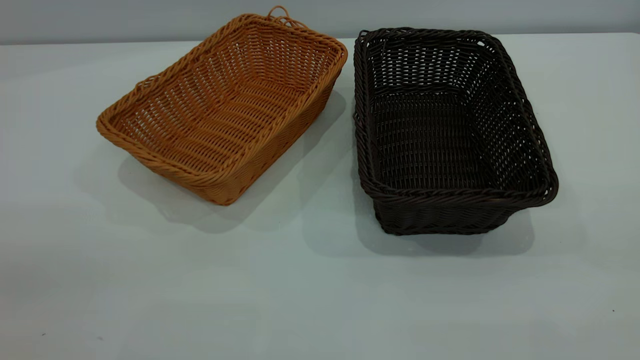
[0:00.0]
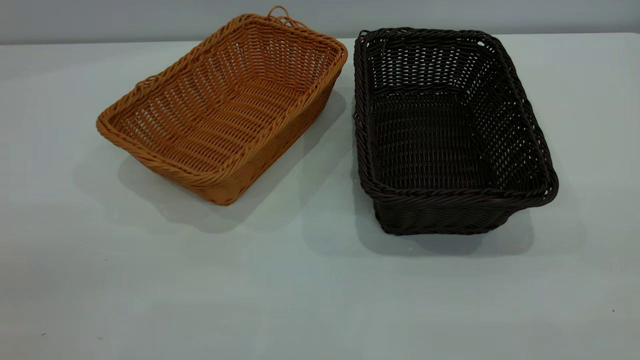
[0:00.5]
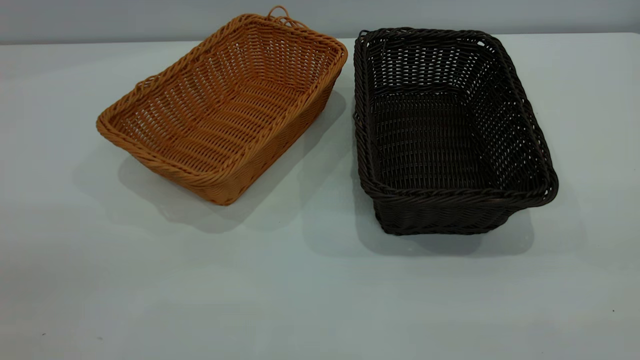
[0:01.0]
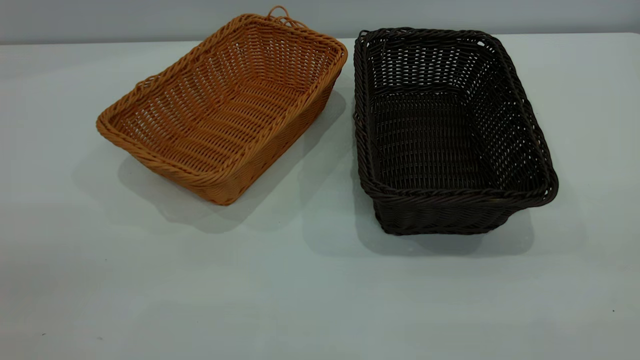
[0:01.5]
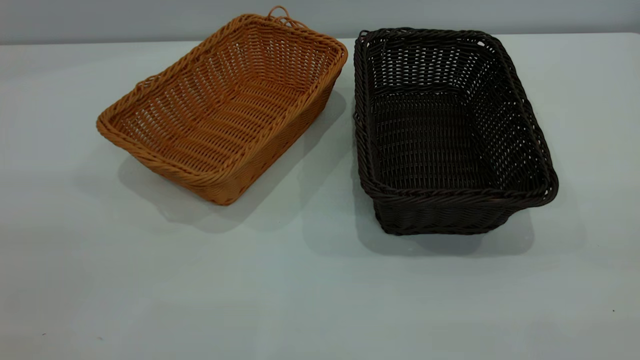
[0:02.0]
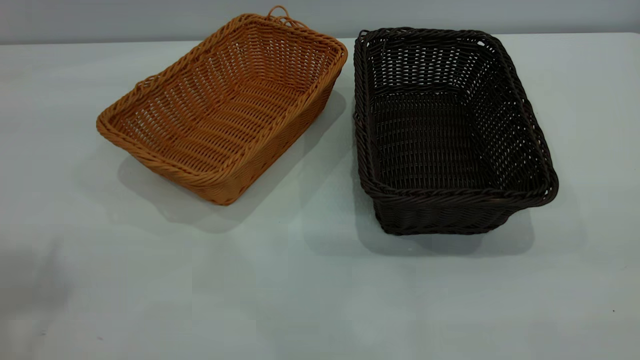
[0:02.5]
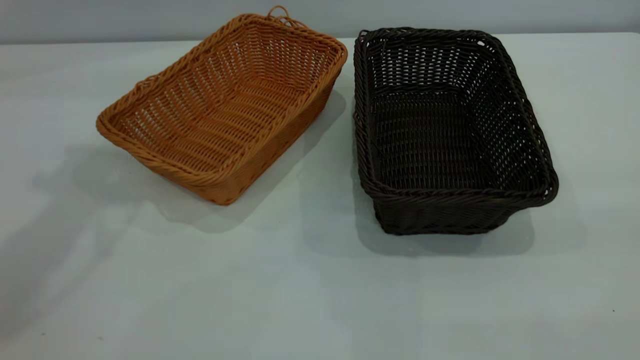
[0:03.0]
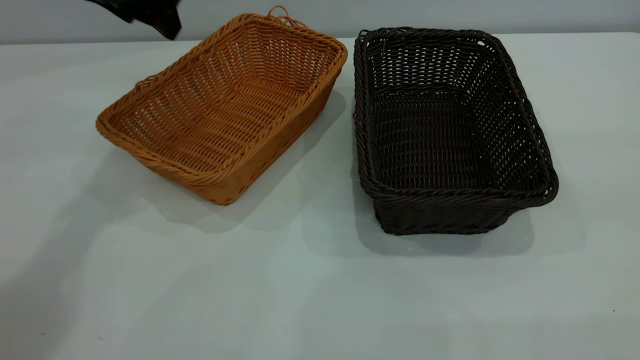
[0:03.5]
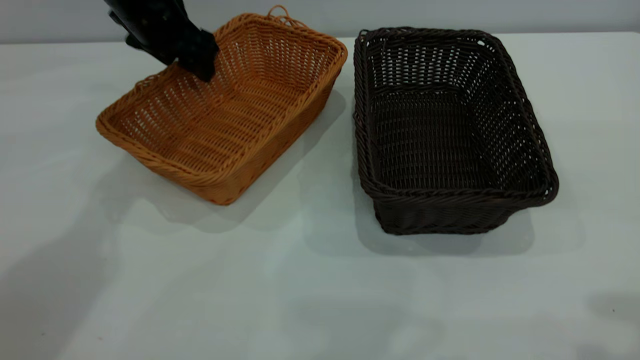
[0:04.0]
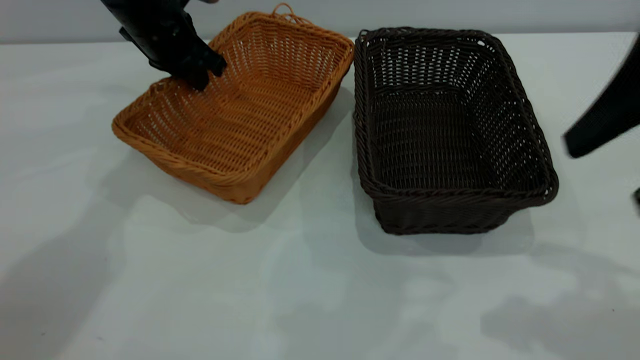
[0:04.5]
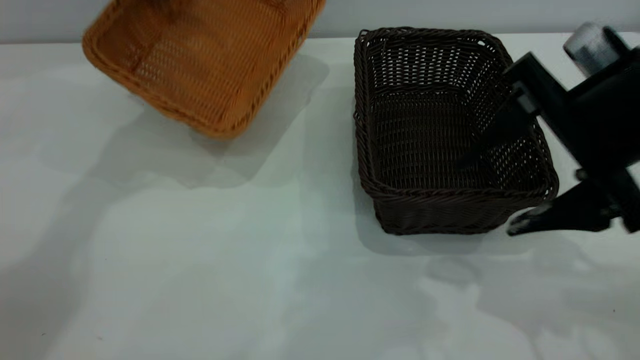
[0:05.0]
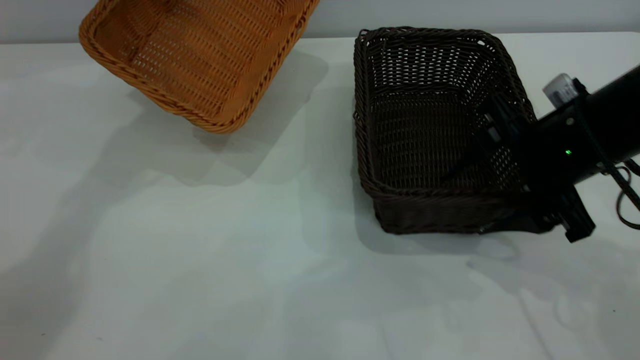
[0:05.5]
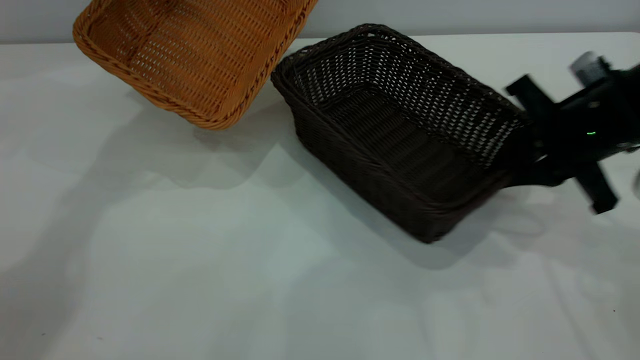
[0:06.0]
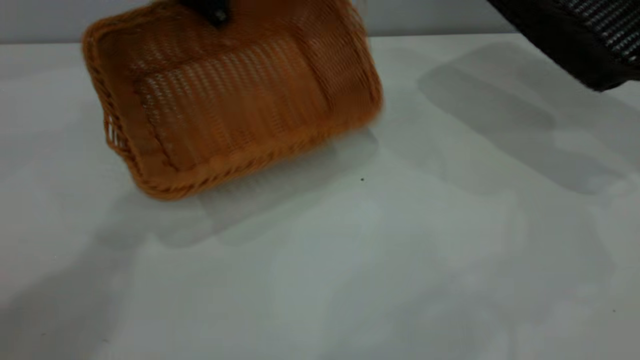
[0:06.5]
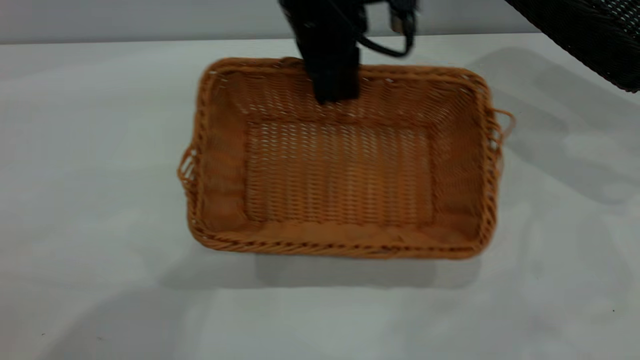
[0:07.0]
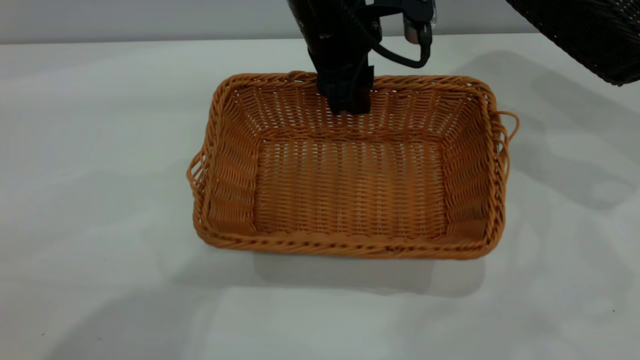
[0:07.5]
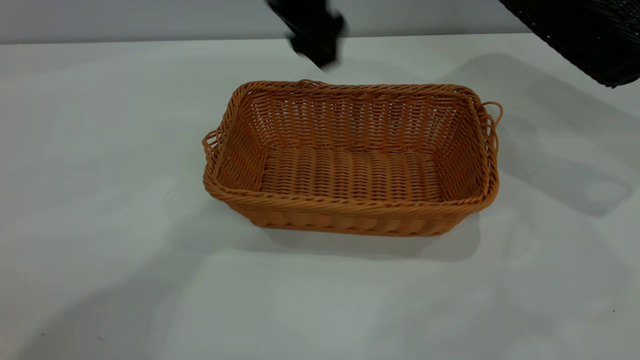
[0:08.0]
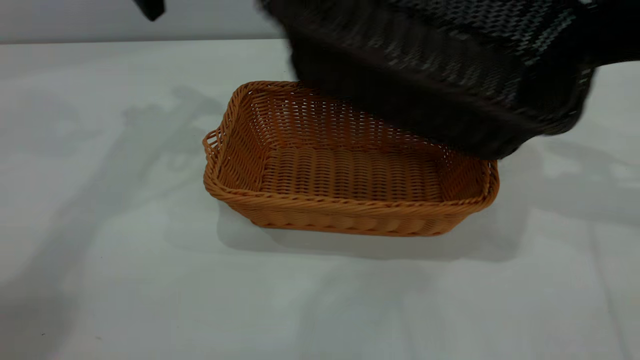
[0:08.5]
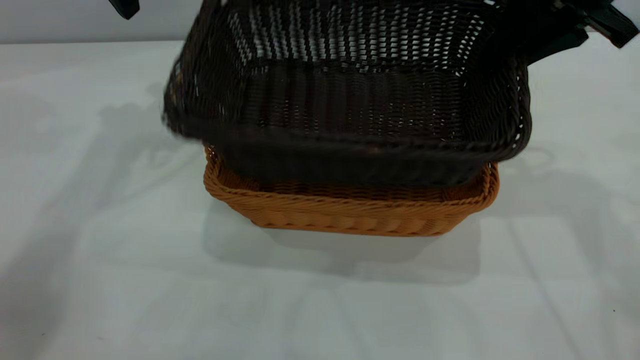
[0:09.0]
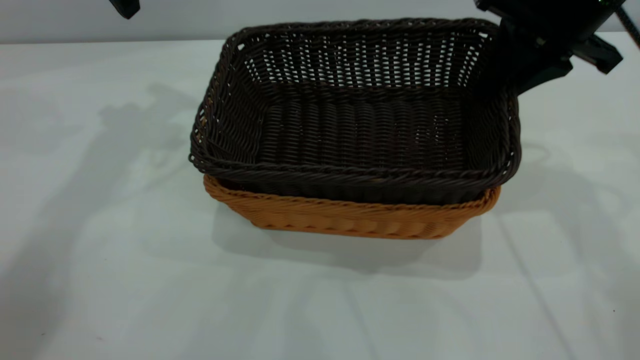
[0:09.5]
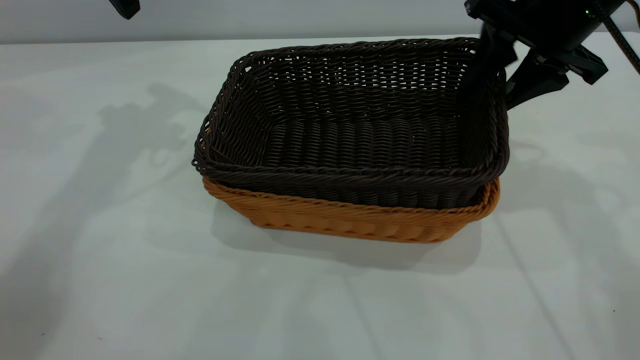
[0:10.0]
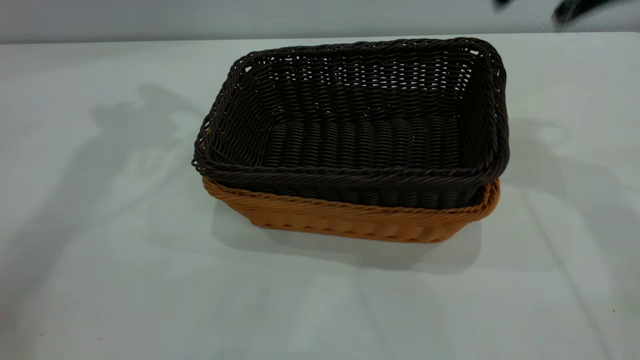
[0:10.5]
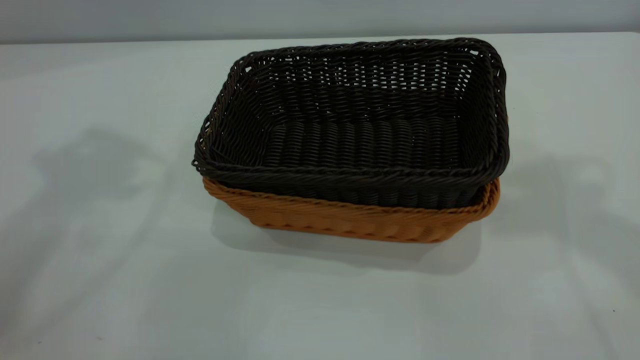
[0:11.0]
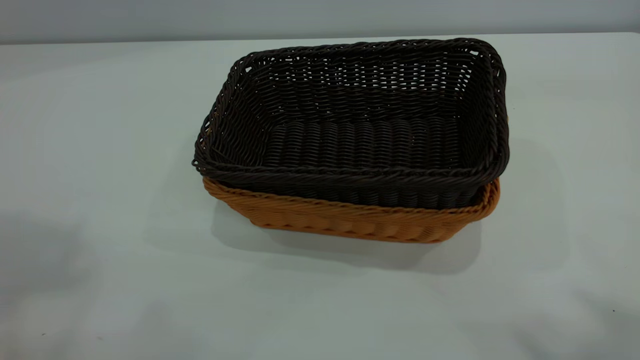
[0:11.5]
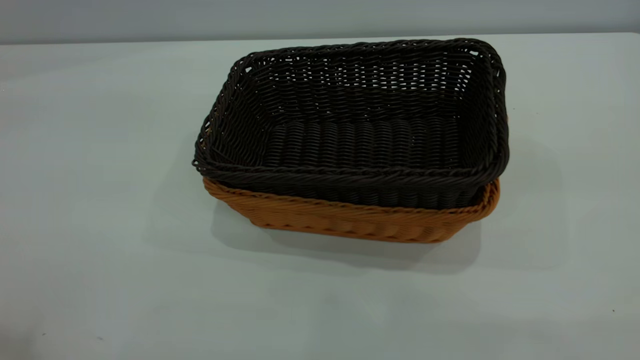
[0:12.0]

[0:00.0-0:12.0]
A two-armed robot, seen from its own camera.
Task of the whole recording: the left gripper grasp the brown basket and place it in the center of the table, the right gripper grasp the black basket and place it inside the brown one.
Step, 0:00.0 to 0:05.0: Pick up the light basket with the right gripper.
Step, 0:05.5 to 0:07.5: Place the light-colored basket in the center.
Step, 0:08.0 to 0:10.0: Place the dark basket on top of the light basket.
0:02.0 to 0:04.0: The left gripper goes approximately 50 cm forward and downward.
0:04.0 to 0:06.0: The left gripper goes some 10 cm upward, and closes its fingers, while the right gripper is displaced downward and forward by some 25 cm, and closes up.
0:06.0 to 0:08.0: The right gripper heads to the right and upward, covering approximately 20 cm. Meanwhile the left gripper goes roughly 15 cm to the right and backward, and opens up.
0:08.0 to 0:10.0: Both grippers travel together to the left, roughly 20 cm. The right gripper opens its fingers.
0:10.0 to 0:12.0: The right gripper shifts approximately 40 cm backward and upward, and opens its fingers.
